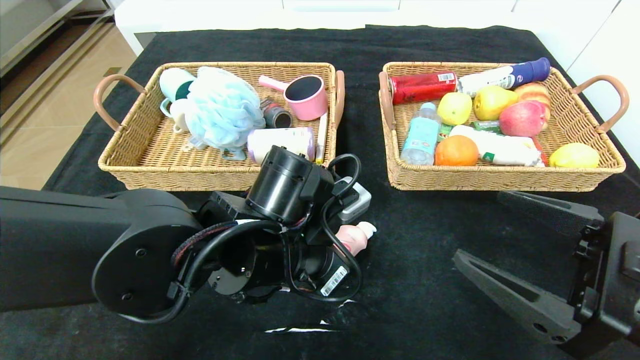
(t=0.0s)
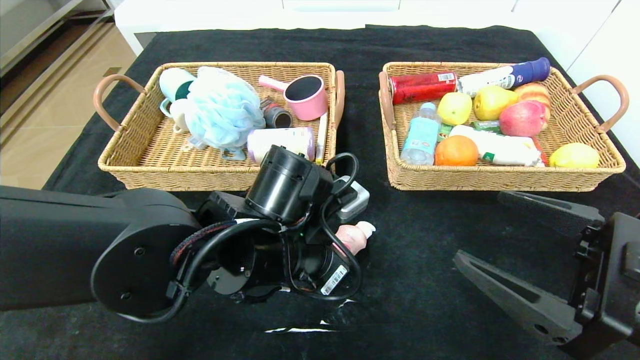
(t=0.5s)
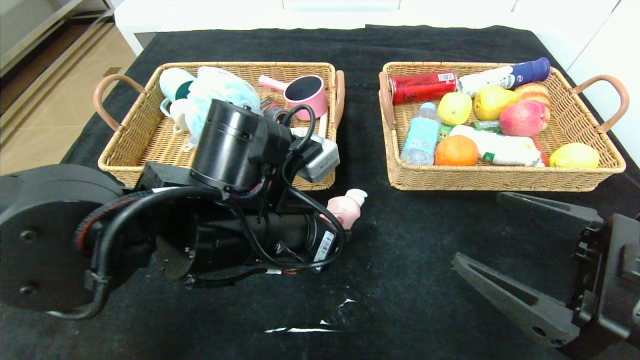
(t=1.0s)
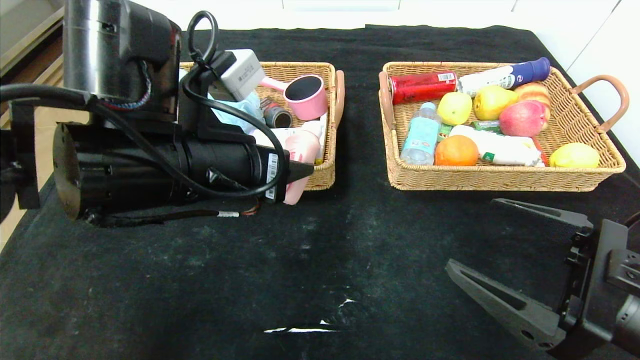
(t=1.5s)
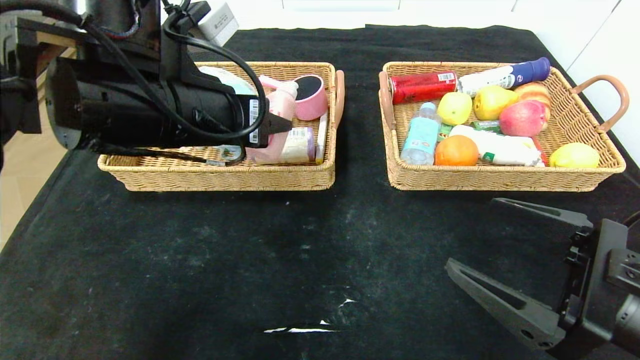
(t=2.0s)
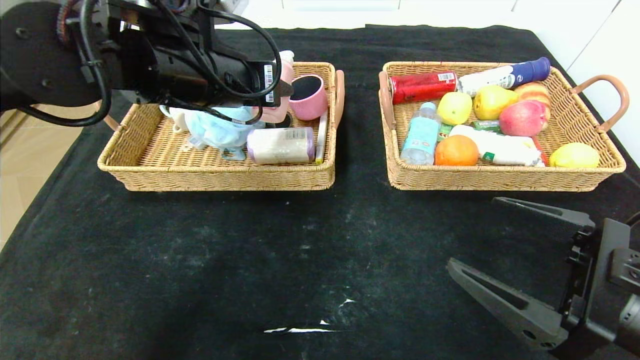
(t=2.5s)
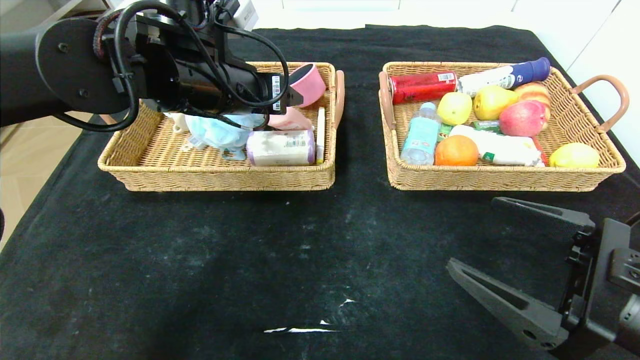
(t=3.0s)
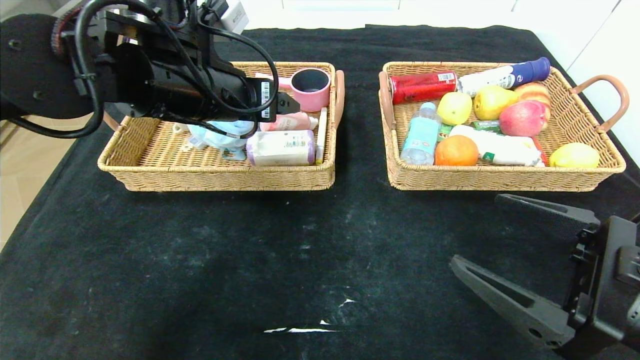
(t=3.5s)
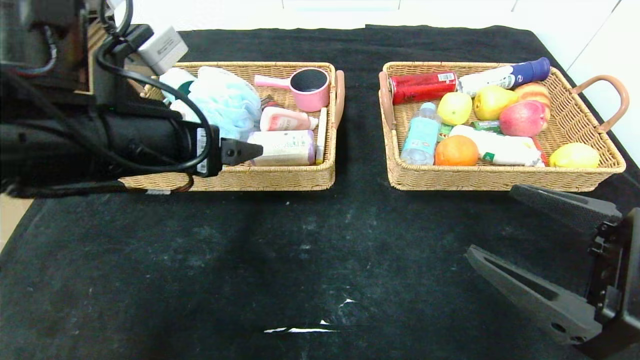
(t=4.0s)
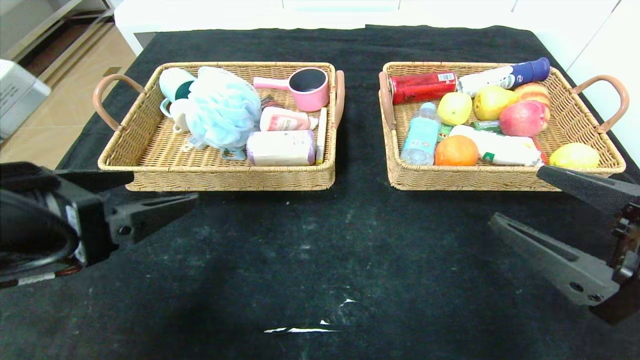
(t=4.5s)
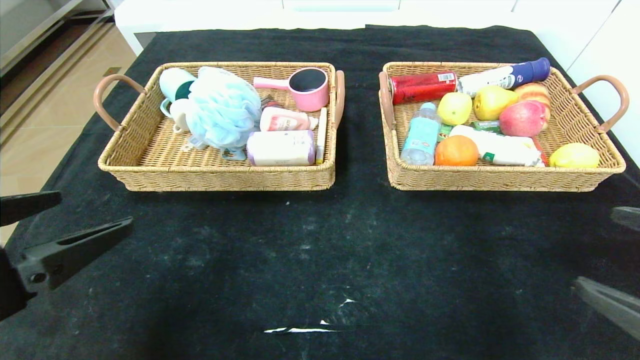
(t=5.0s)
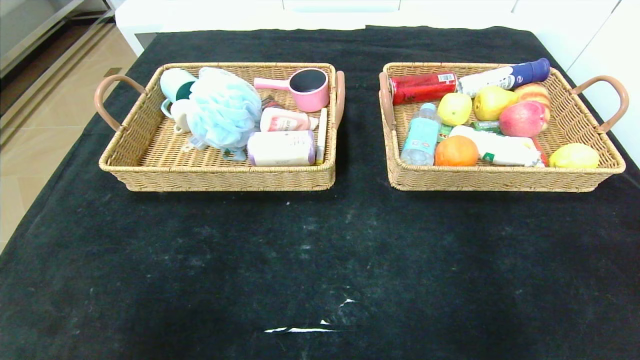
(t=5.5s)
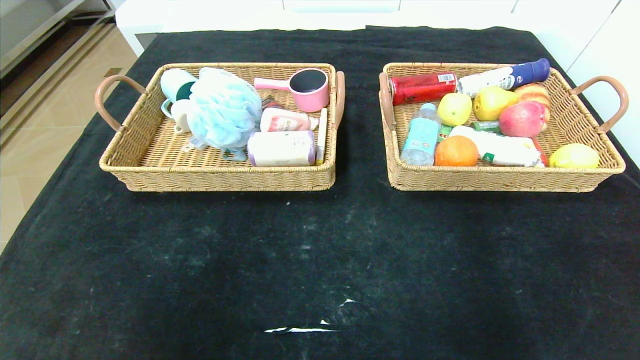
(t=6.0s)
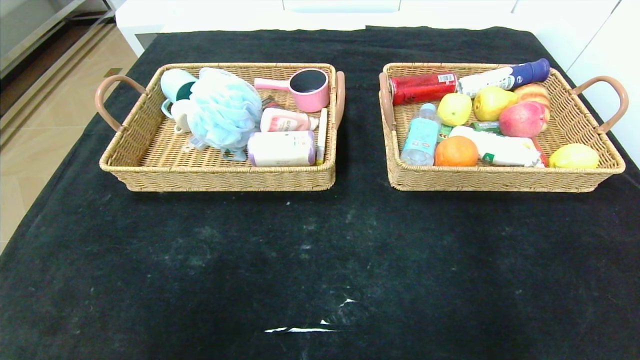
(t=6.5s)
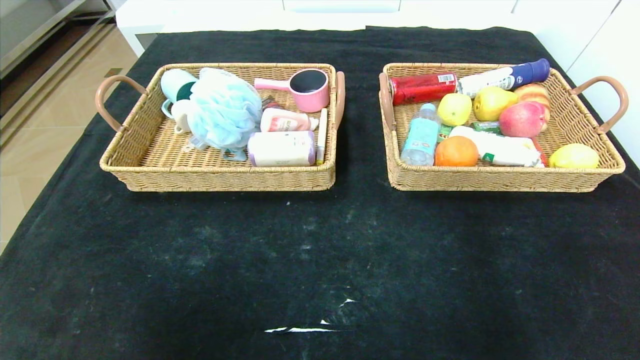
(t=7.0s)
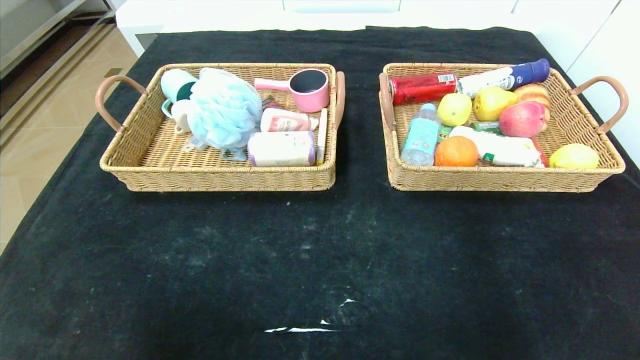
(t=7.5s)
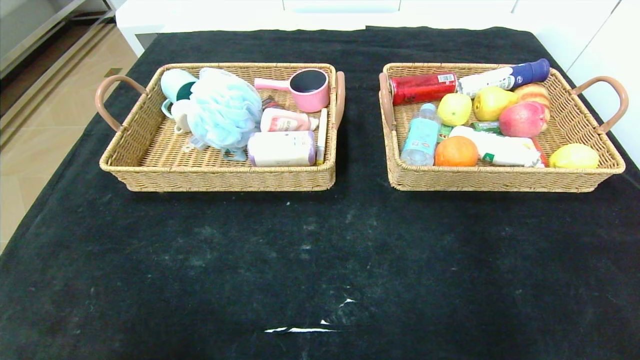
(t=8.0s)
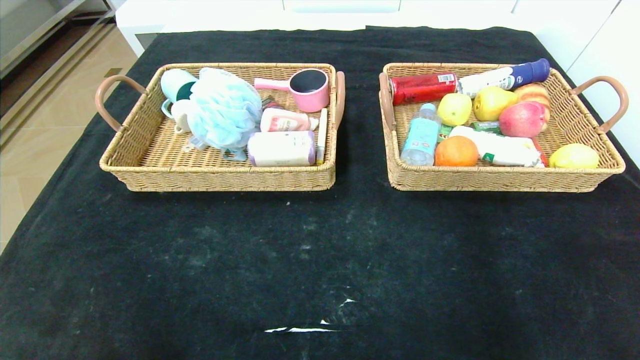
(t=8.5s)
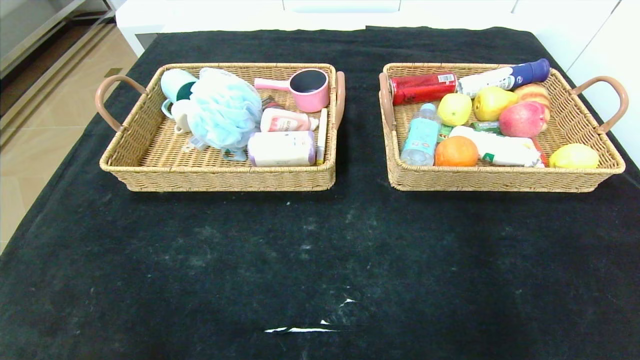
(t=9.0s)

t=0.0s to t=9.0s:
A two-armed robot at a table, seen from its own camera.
Step, t=0.0s to t=4.5s: Pick up the detergent and put it in the left basket.
t=0.0s to t=2.0s: The left gripper travels upward and to the left by about 15 cm.
t=2.0s to t=4.5s: The left gripper moves backward and to the left, about 15 cm, and opens up.
t=4.5s to t=7.0s: The left gripper shifts roughly 20 cm backward. Meanwhile the right gripper shifts roughly 25 cm backward and to the right.

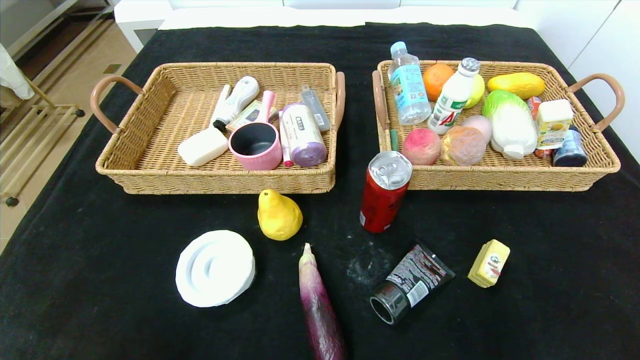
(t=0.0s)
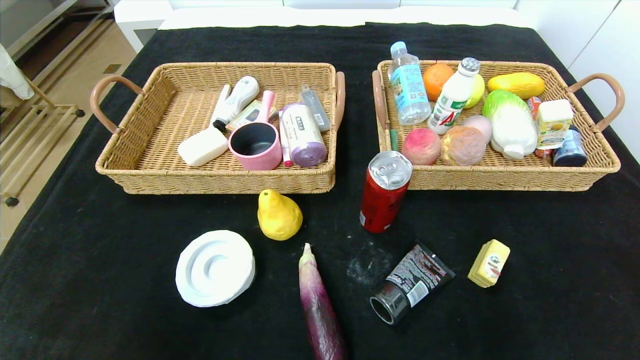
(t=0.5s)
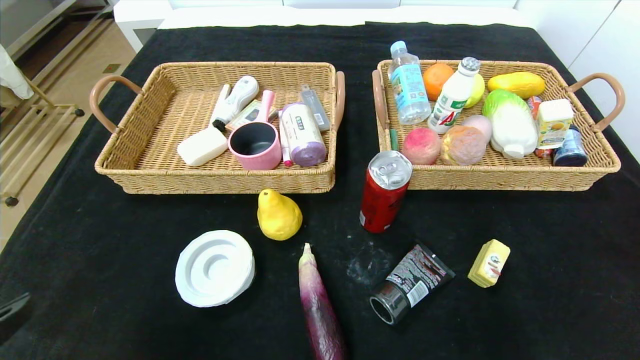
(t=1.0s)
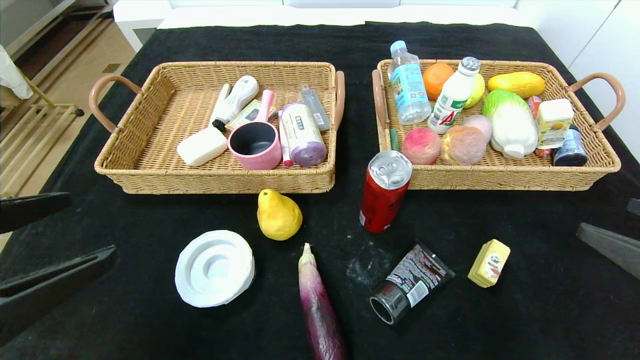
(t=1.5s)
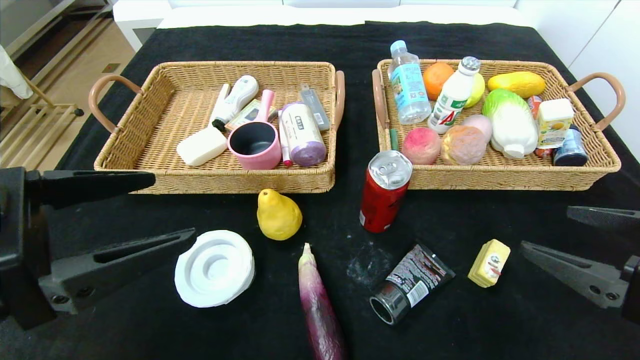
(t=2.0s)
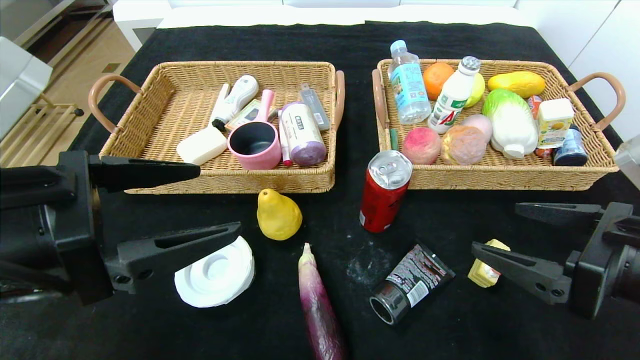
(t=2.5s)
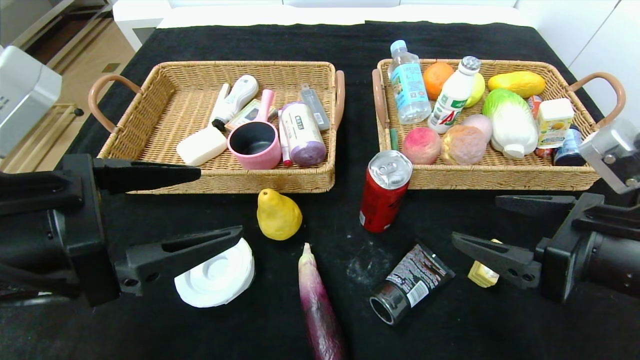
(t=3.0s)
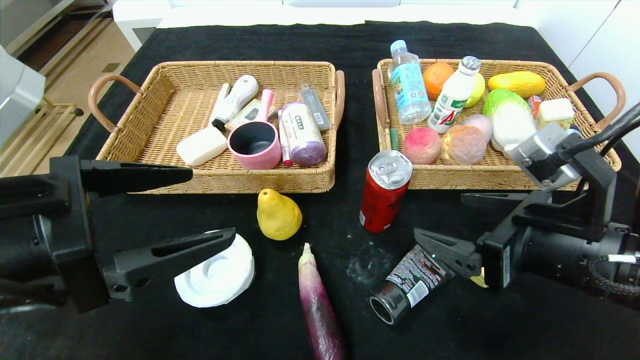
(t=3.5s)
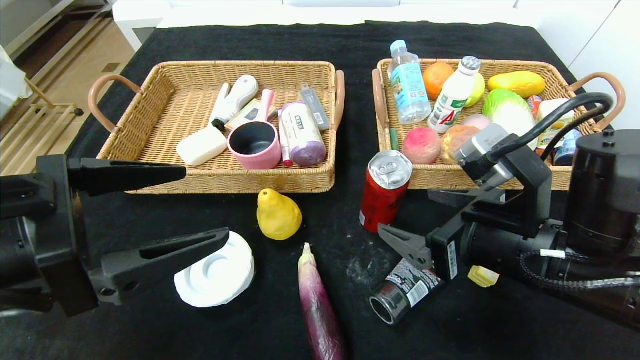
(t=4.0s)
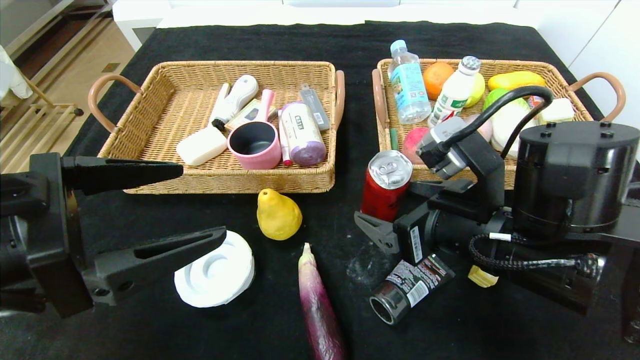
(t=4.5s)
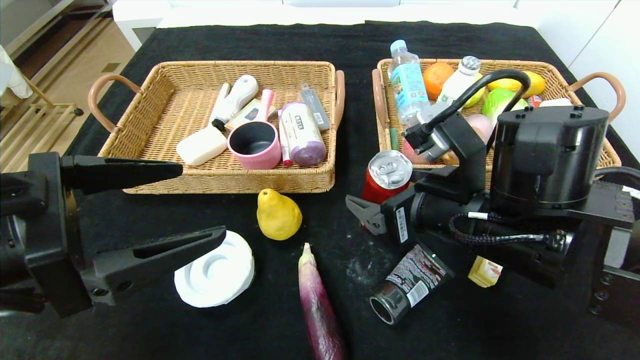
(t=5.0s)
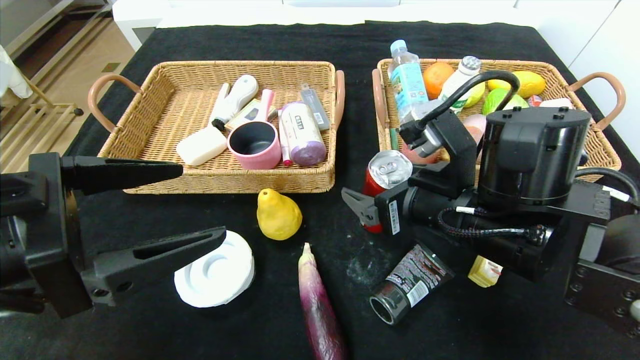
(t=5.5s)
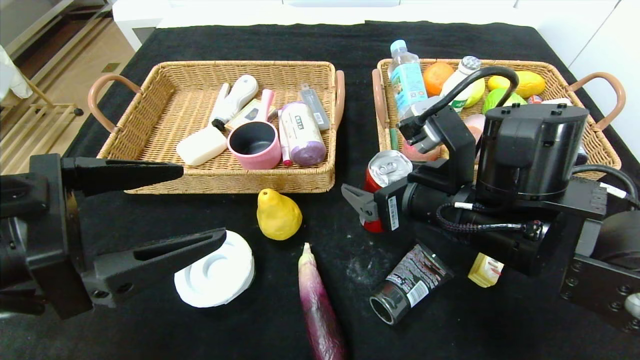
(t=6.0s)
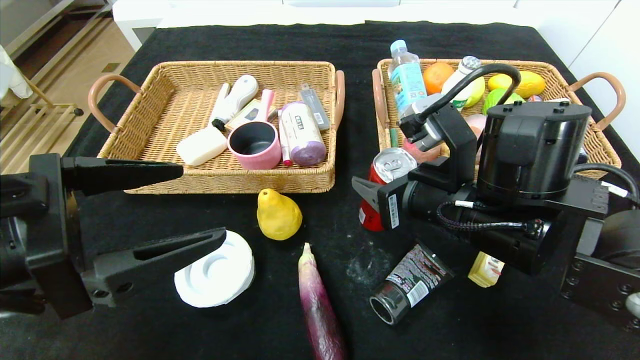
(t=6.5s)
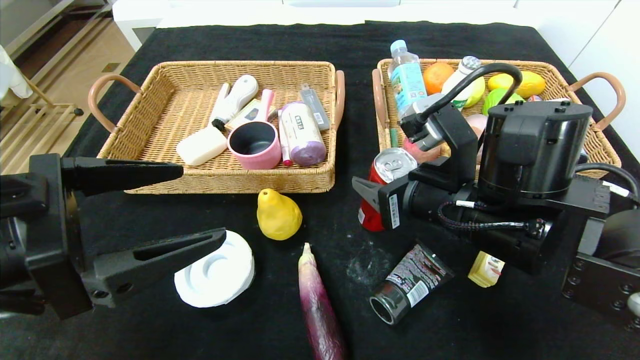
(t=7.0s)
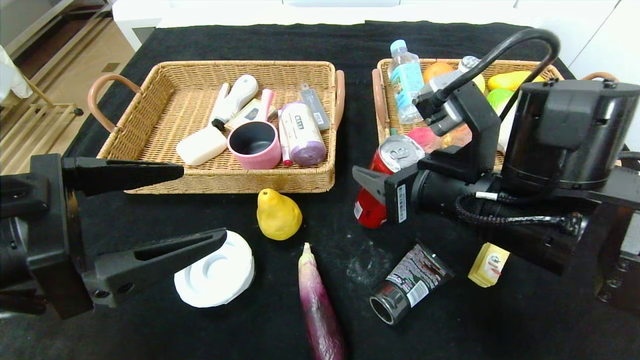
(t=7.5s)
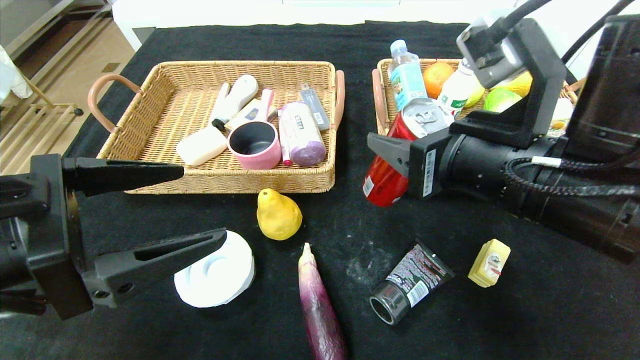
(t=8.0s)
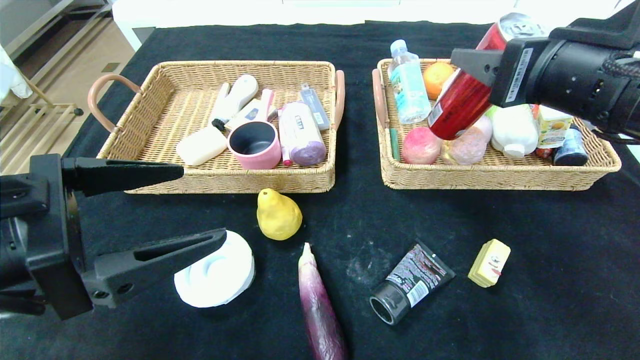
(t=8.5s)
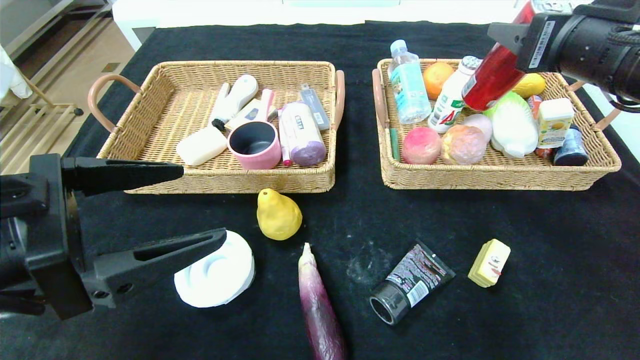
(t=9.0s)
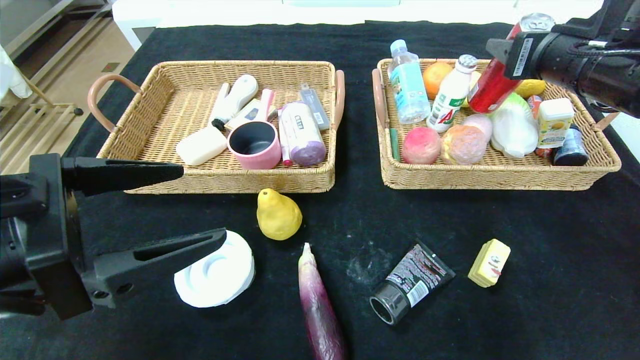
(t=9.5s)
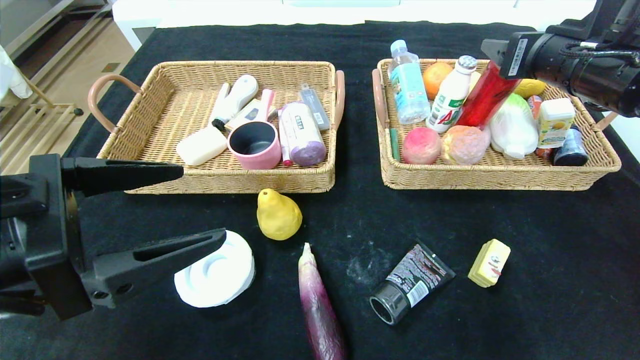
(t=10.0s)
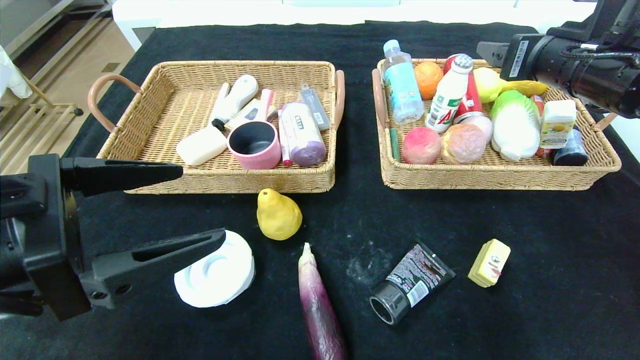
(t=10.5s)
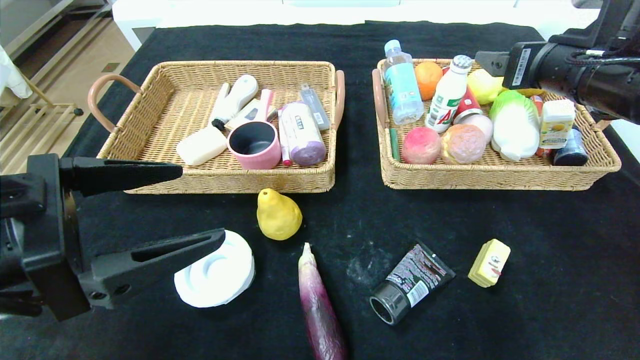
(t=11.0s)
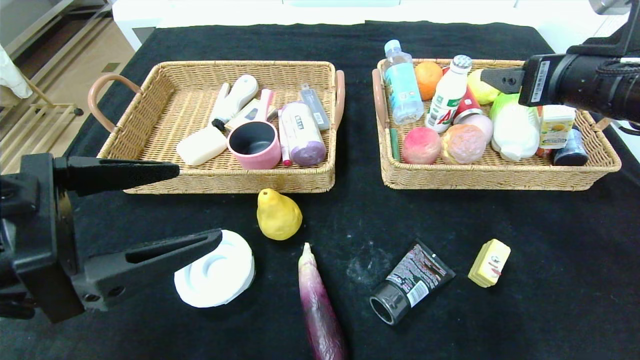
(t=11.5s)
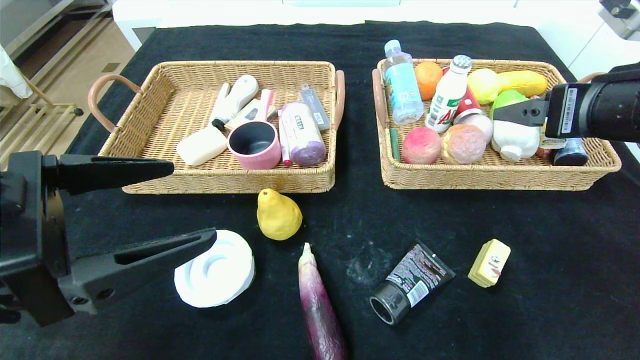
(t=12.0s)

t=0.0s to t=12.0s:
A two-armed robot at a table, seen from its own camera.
t=0.0s to t=2.0s: The right gripper is displaced forward and upward by roughly 20 cm. The left gripper moves upward and forward, approximately 25 cm.
t=2.0s to t=4.0s: The right gripper shifts some 15 cm to the left and forward.
t=4.0s to t=6.0s: The right gripper ends up some 5 cm from where it was.
t=6.0s to t=8.0s: The right gripper shifts roughly 5 cm upward, and closes up.
t=8.0s to t=10.0s: The right gripper is displaced forward, to the right and upward by about 20 cm.
t=10.0s to t=12.0s: The right gripper goes approximately 10 cm backward.
